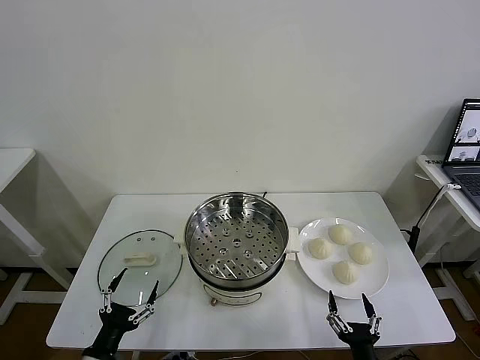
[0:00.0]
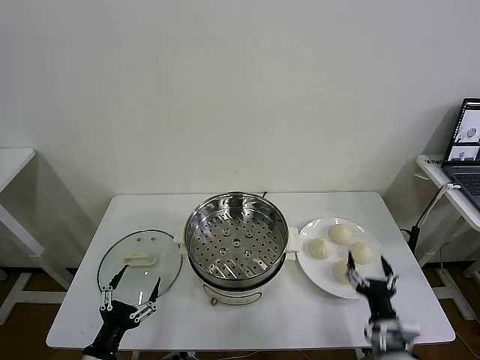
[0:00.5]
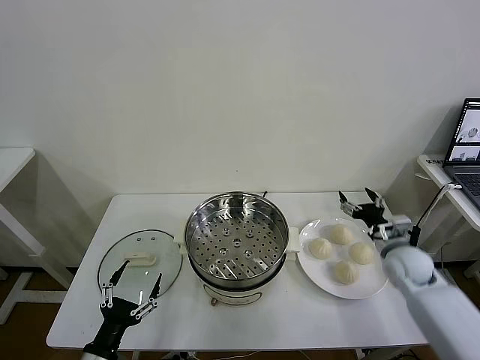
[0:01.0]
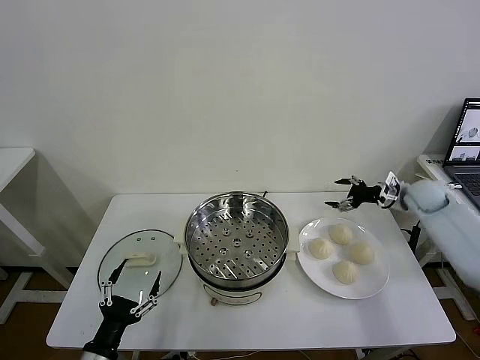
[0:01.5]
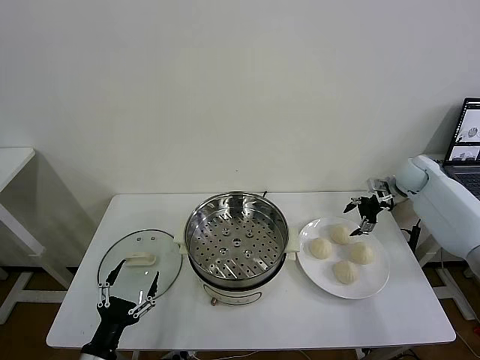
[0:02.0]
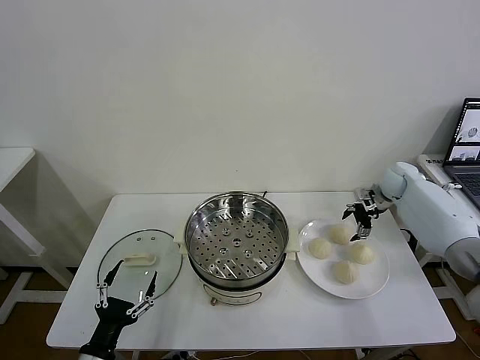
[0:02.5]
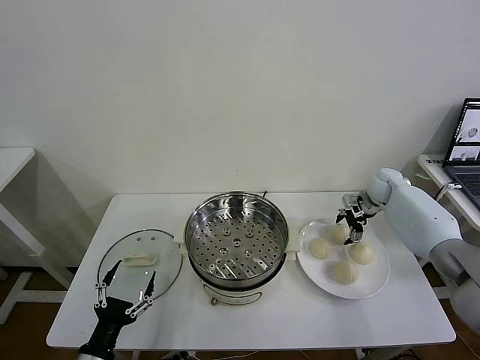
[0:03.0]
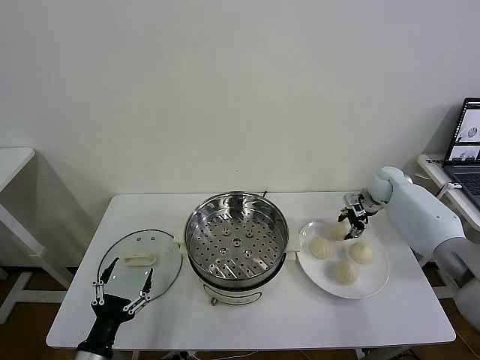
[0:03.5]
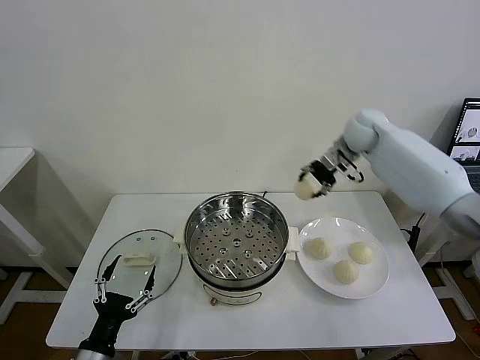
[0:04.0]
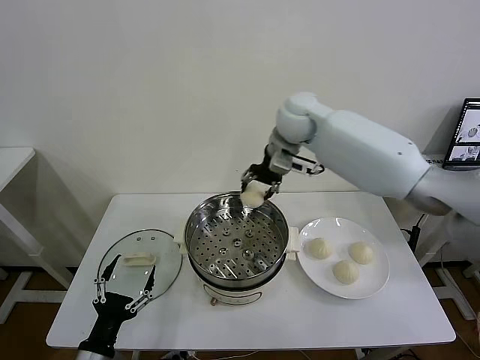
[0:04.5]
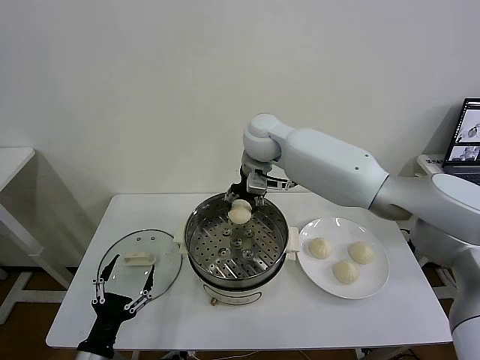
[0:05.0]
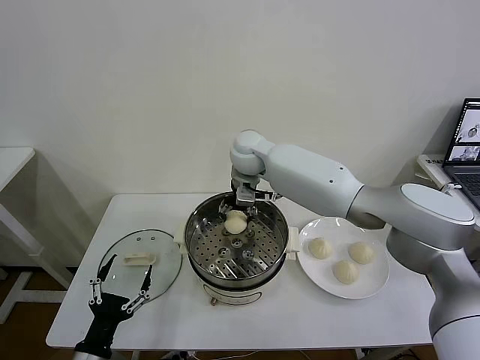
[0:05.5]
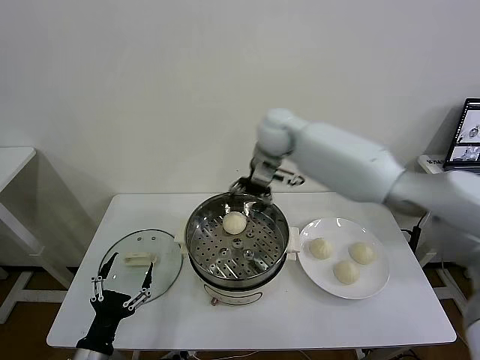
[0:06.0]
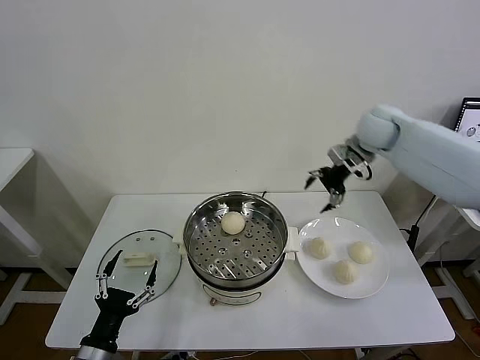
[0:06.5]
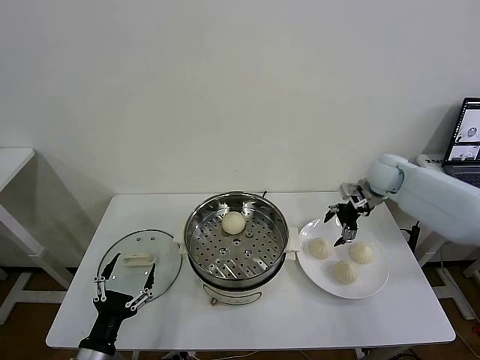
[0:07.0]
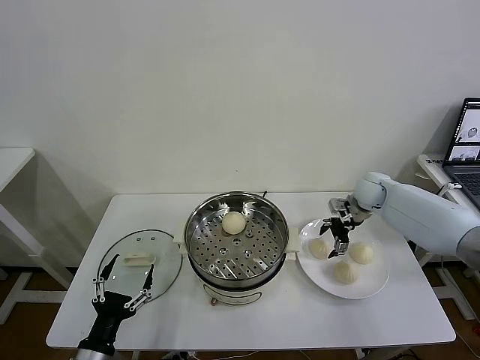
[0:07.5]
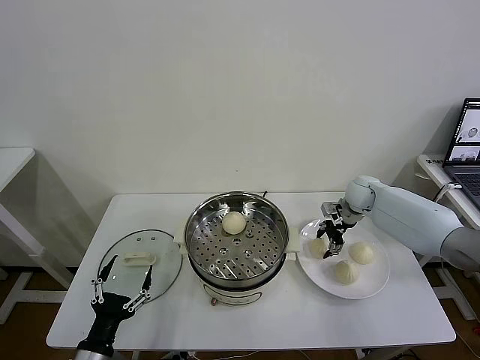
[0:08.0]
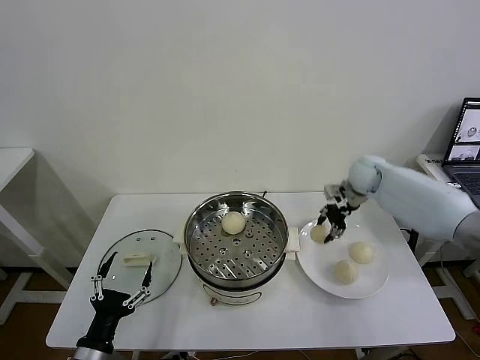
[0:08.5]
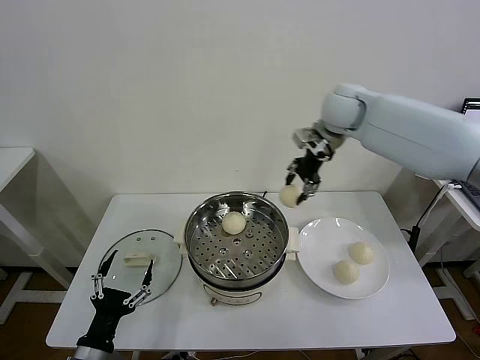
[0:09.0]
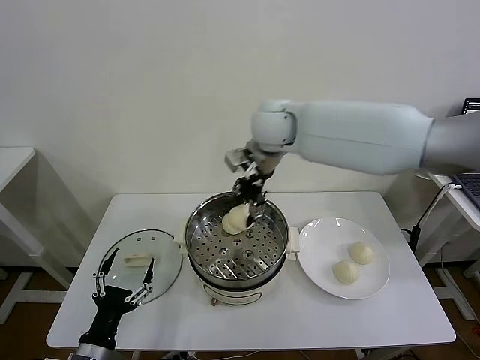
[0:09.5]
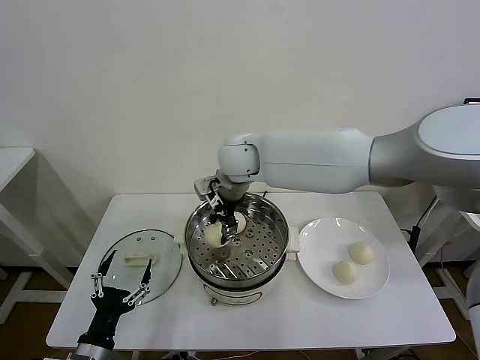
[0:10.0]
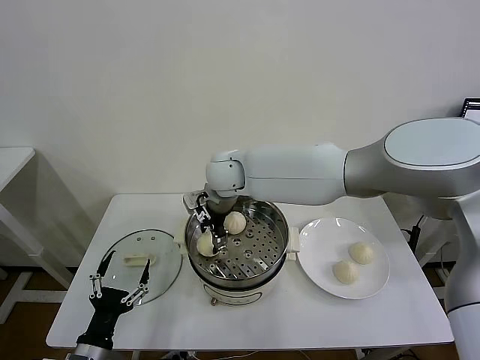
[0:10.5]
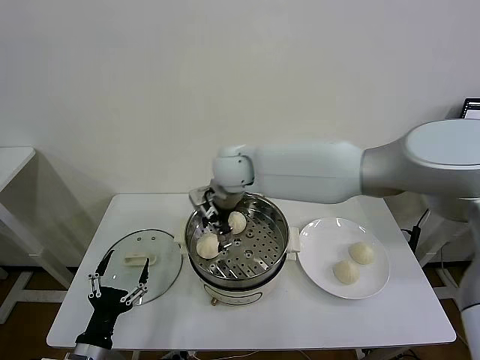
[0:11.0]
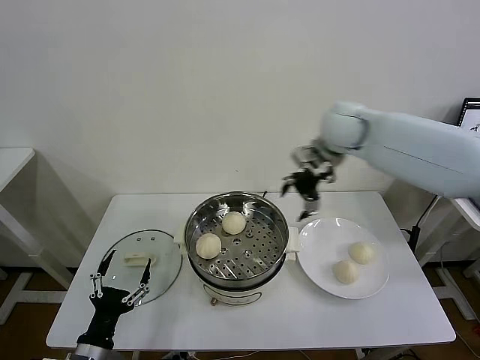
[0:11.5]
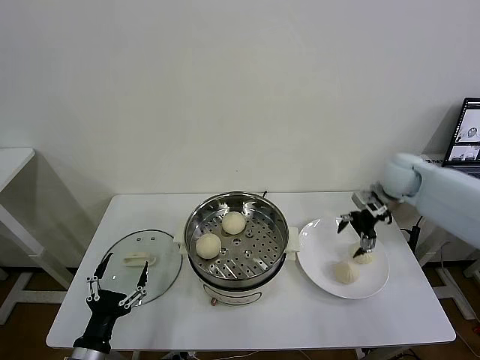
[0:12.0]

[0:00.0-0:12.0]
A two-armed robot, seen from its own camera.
Task of the whole recording: take steamed baozi put them in steamer then cover it.
Step, 0:00.0 to 0:03.0: Grasp the baozi in the plate with right gripper.
Step, 0:03.5 to 0:05.5: Place the baozi on the steamer with right gripper.
Step, 0:06.0 to 0:07.5: Grasp the baozi in the plate with right gripper.
Step, 0:08.0 to 0:10.5: Place the baozi on the steamer with right gripper.
0:02.0 to 0:04.0: The right gripper travels to the left and upward by some 25 cm, and closes its fingers.
0:04.0 to 0:06.0: The right gripper is displaced to the left by roughly 10 cm, and opens up.
0:06.0 to 0:08.0: The right gripper shifts roughly 30 cm downward and to the right, and closes.
0:08.0 to 0:10.0: The right gripper travels to the left and upward by approximately 40 cm.
0:10.0 to 0:12.0: The right gripper travels to the right by about 40 cm, and opens.

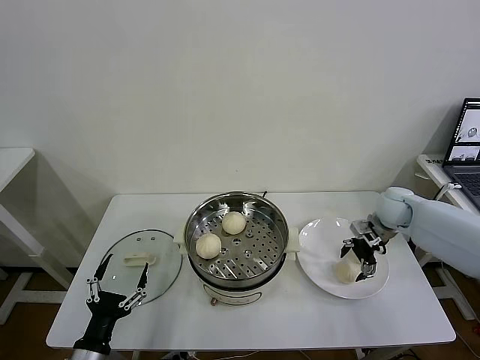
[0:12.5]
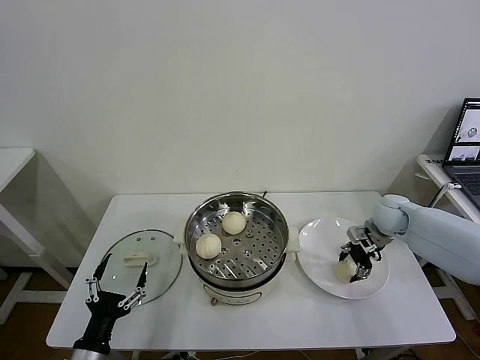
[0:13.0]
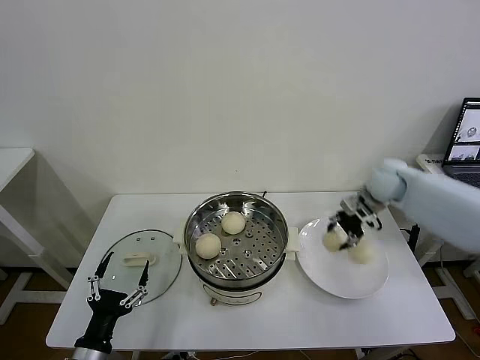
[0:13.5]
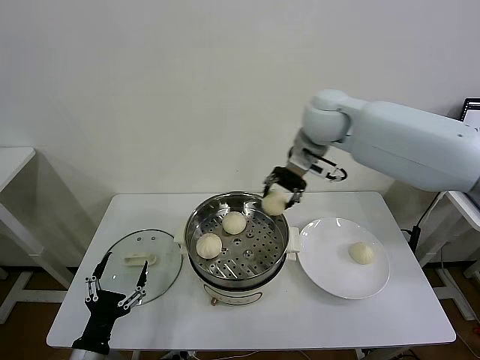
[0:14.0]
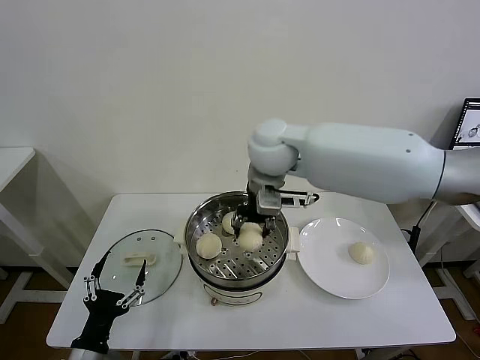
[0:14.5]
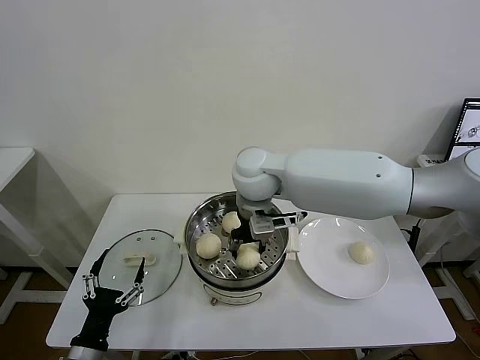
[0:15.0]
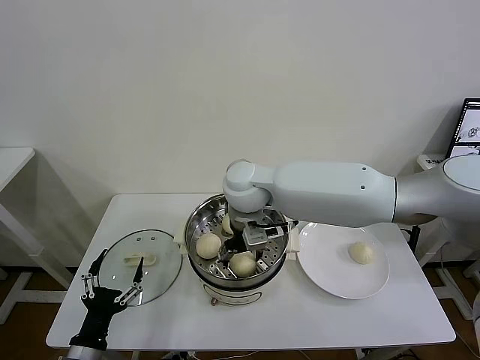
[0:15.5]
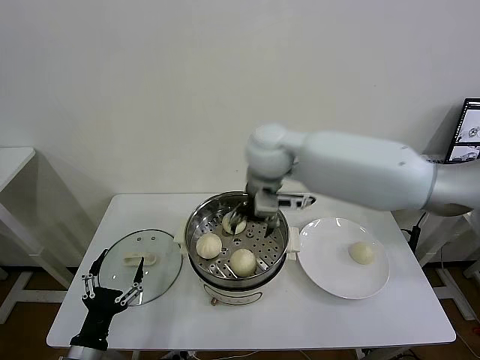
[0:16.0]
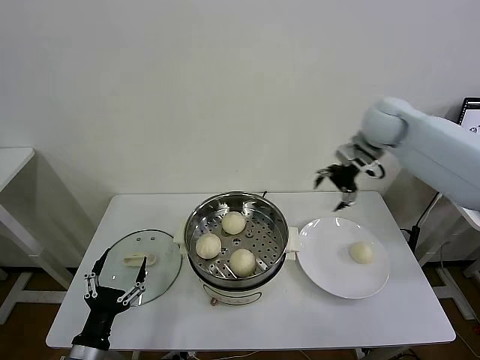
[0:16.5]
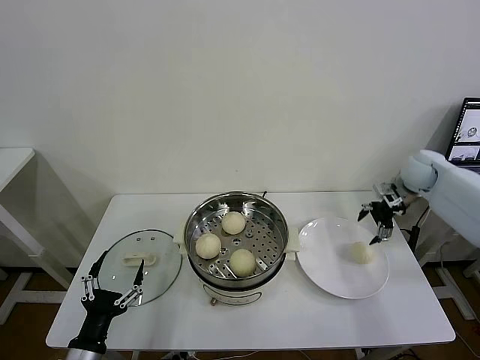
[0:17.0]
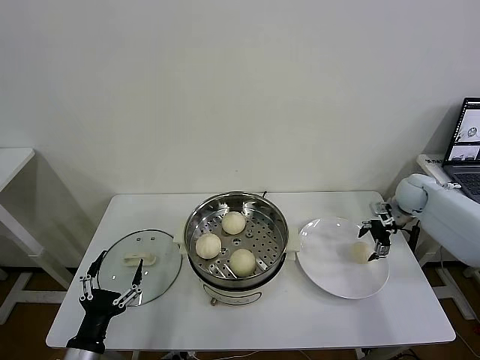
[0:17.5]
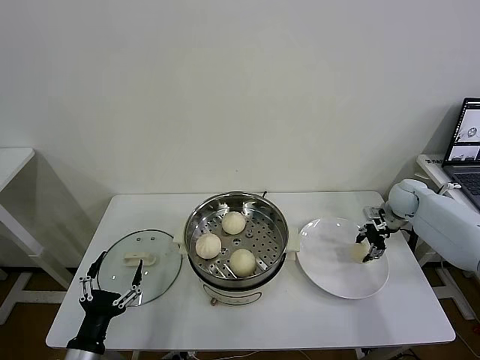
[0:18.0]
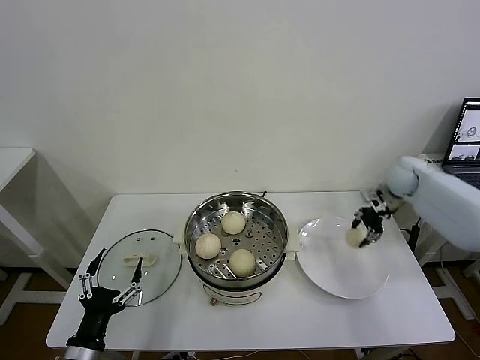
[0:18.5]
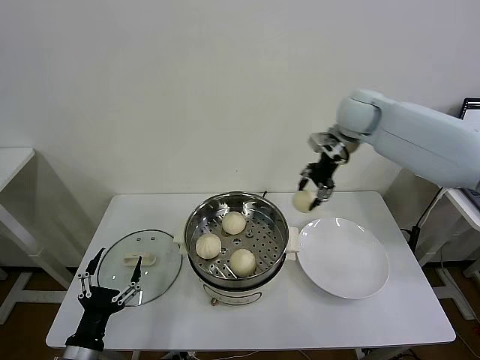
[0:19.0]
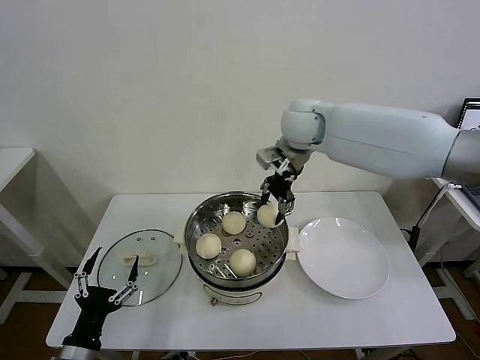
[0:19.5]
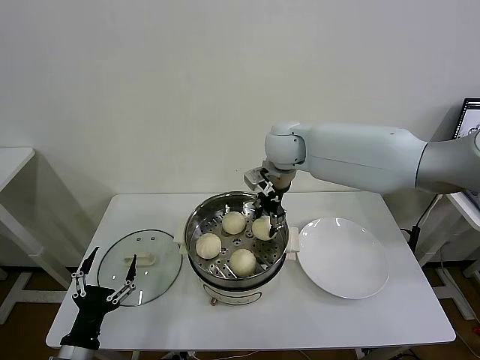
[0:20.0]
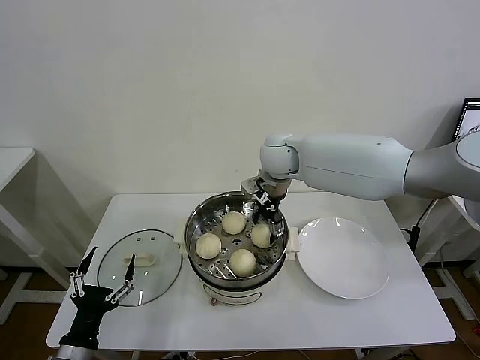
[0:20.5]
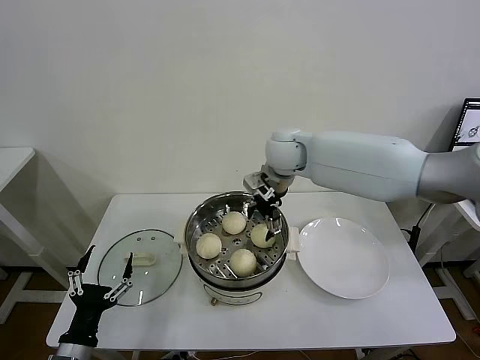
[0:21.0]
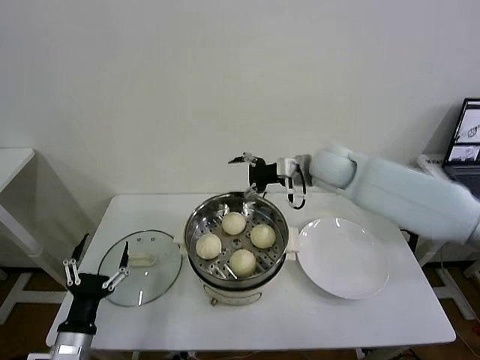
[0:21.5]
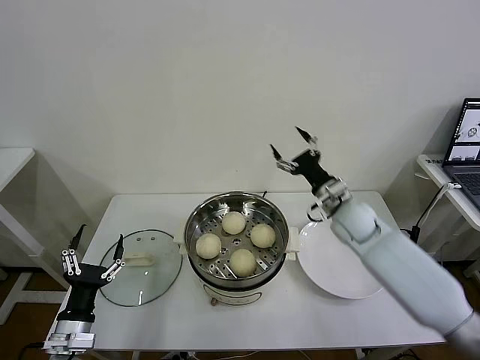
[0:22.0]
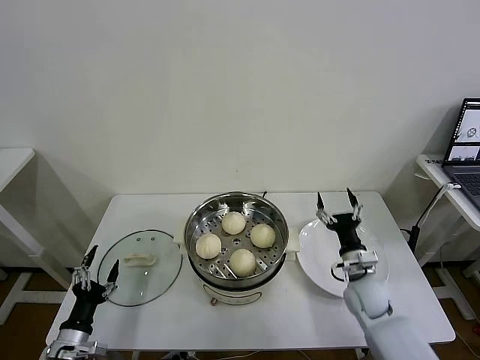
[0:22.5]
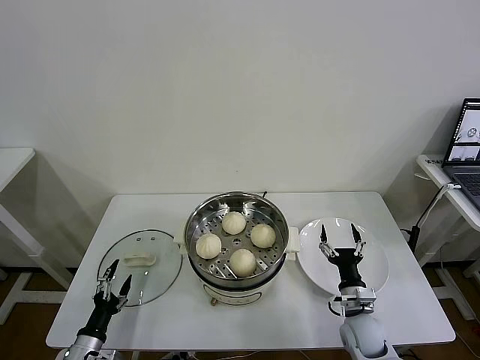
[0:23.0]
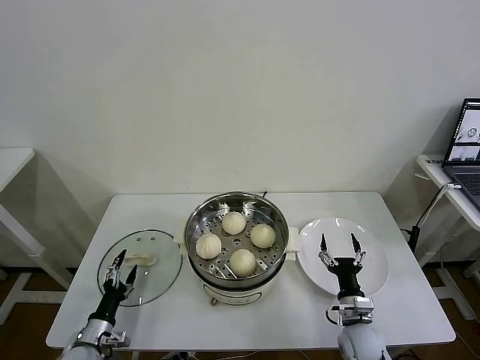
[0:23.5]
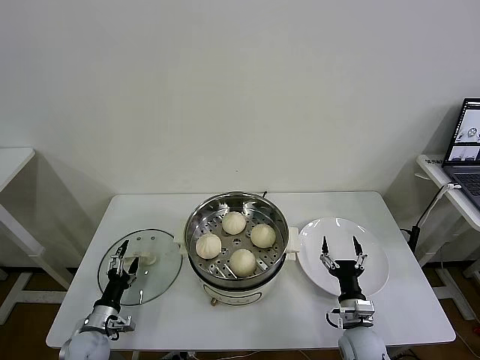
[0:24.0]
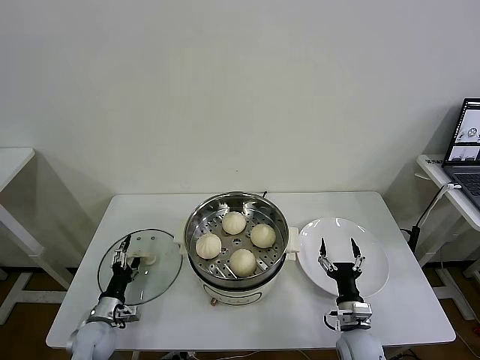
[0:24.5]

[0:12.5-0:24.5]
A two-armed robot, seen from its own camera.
Task of the whole recording: take steamed baozi put them in steamer then cover it.
Step, 0:13.5 to 0:15.5: Place the baozi on the steamer with right gripper.
Step, 0:16.0 to 0:17.5: Grasp the baozi in the plate with right gripper.
Step, 0:18.5 to 0:20.5: Place the baozi on the steamer with right gripper.
0:12.5 to 0:14.5: The right gripper heads to the left and upward, covering some 40 cm, and closes.
0:14.5 to 0:16.5: The right gripper is displaced to the right by some 30 cm, and opens its fingers.
0:16.5 to 0:18.5: The right gripper heads downward and to the right, covering some 15 cm, and closes its fingers.
0:18.5 to 0:20.5: The right gripper is displaced to the left by about 35 cm, and opens up.
0:20.5 to 0:22.5: The left gripper shifts approximately 10 cm downward and to the left. Meanwhile the right gripper shifts approximately 40 cm downward, to the right and backward.
0:22.5 to 0:24.5: The left gripper goes roughly 15 cm forward and downward. Meanwhile the right gripper is displaced backward and downward by some 15 cm.

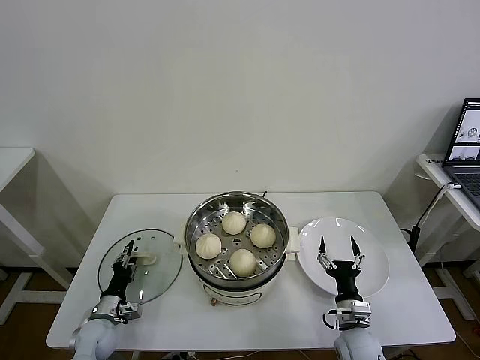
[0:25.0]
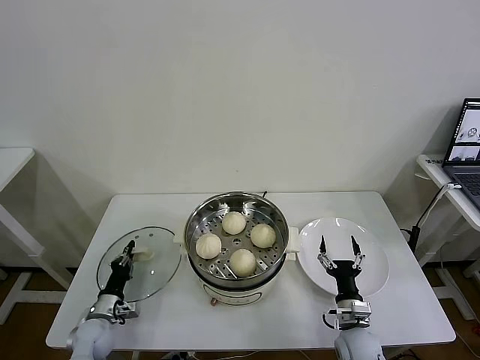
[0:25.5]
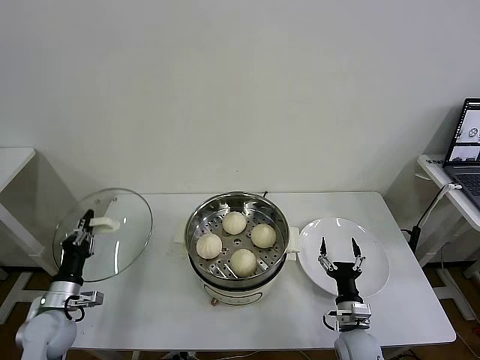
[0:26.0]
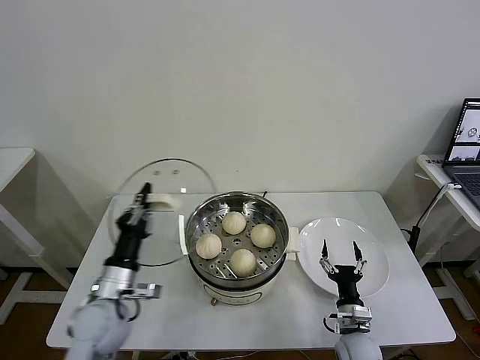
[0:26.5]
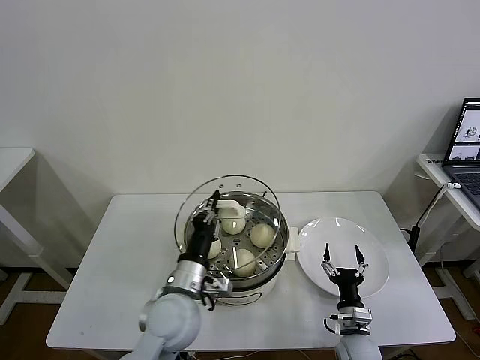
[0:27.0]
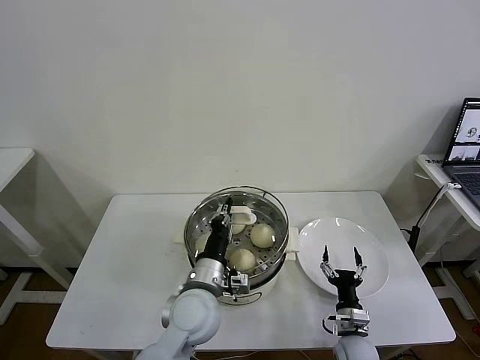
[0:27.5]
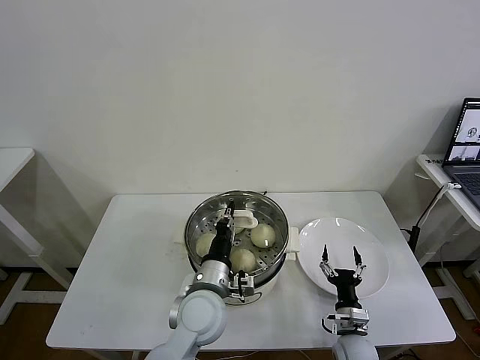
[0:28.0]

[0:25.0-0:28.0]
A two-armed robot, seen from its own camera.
Task of the whole recording: take steamed baozi put them in steamer then cover it.
0:25.0 to 0:26.5: The left gripper goes about 20 cm upward and to the right, and closes up.
0:26.5 to 0:28.0: The left gripper moves to the right, some 20 cm.
